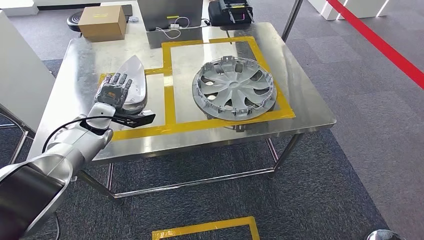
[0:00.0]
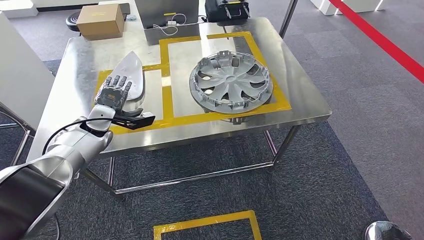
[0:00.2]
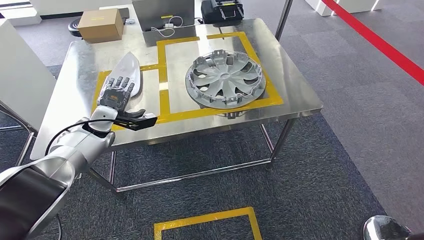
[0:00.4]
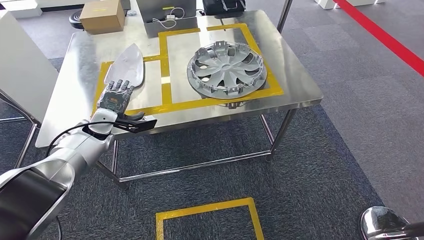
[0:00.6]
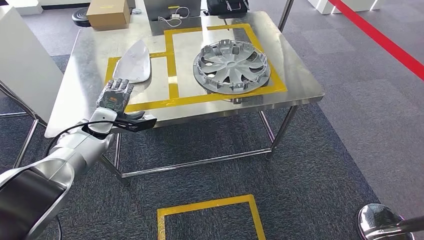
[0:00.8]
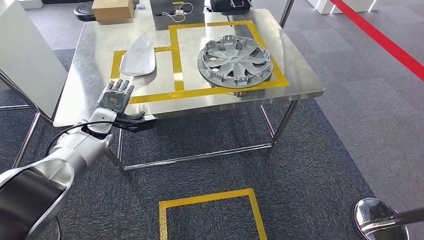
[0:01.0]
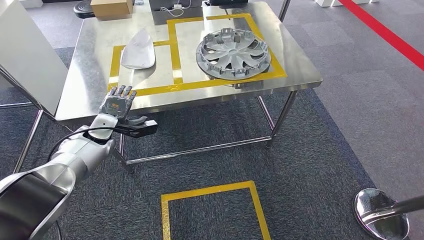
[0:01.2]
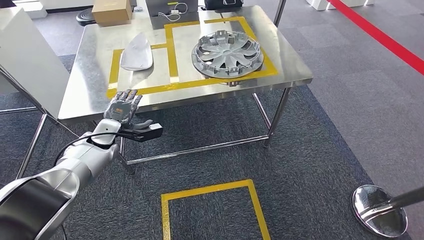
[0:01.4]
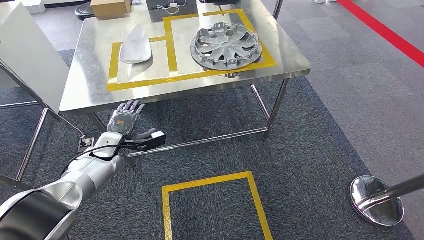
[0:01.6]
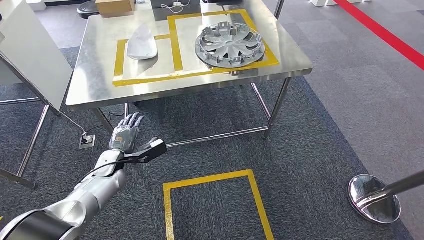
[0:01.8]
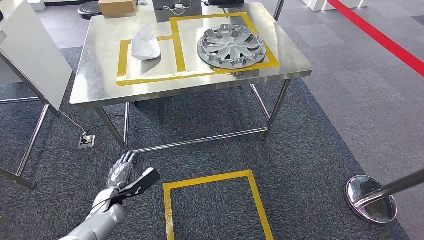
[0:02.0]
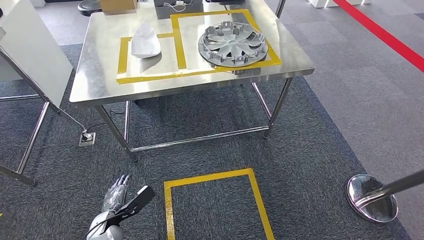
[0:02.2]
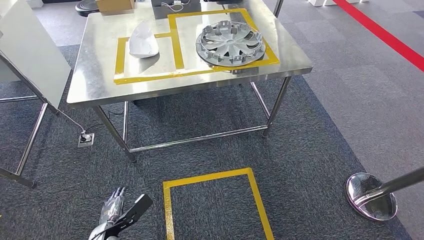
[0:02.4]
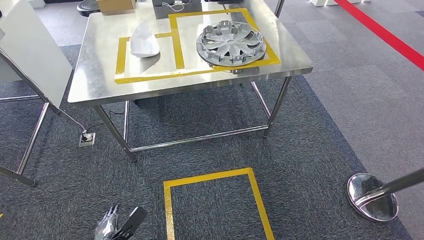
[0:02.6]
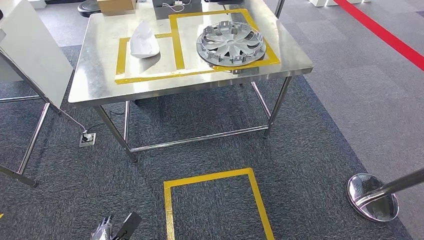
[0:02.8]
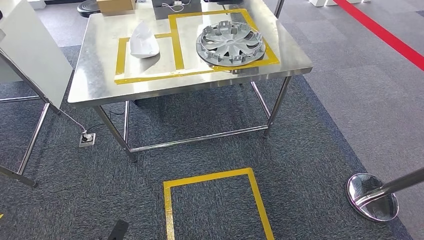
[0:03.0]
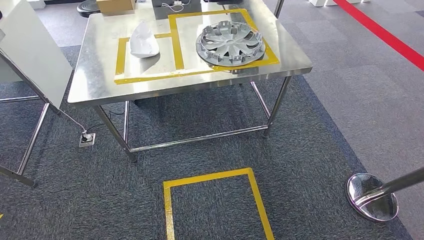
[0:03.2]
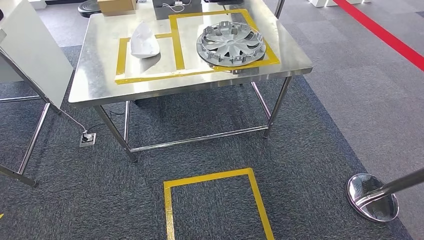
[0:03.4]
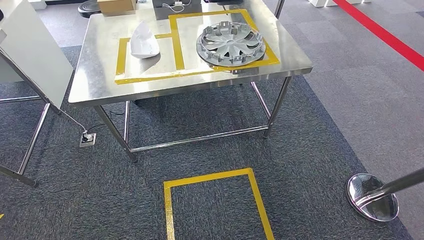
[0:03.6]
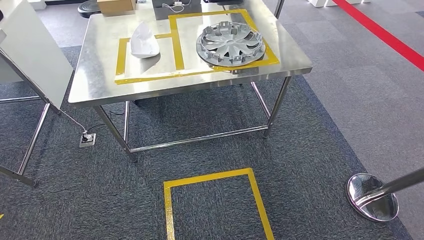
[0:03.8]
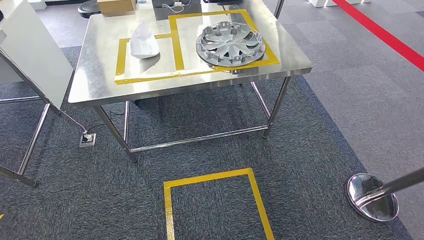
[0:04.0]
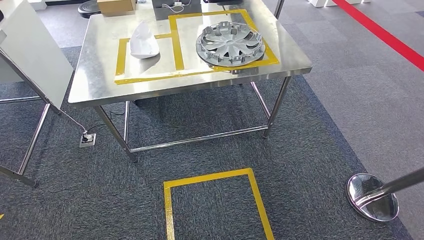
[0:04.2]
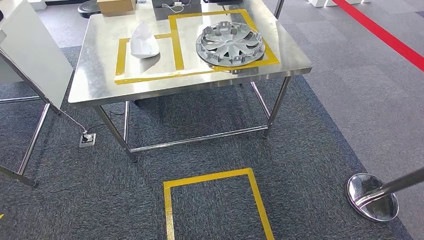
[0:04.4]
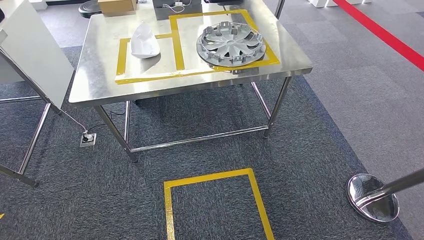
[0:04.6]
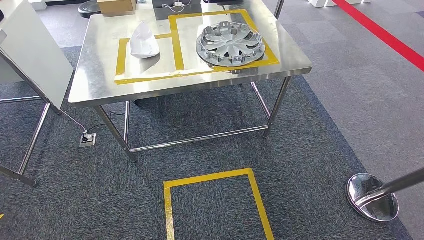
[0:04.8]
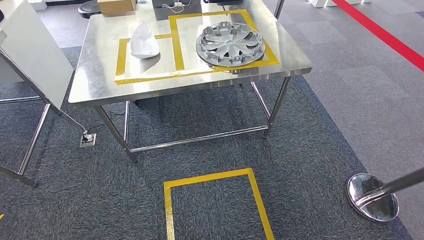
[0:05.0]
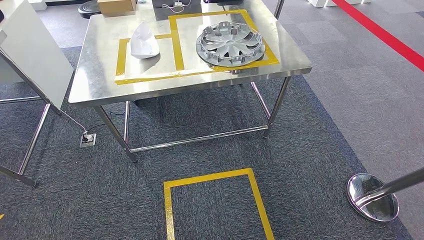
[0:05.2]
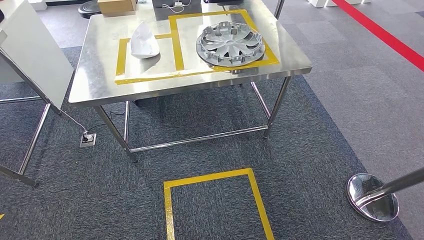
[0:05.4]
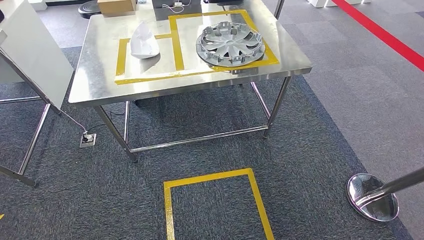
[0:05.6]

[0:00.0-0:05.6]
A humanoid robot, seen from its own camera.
Step, 0:00.0 to 0:05.6: Move to the initial position of the workbench.
0:02.8 to 0:04.2: The left hand moves backward and to the right, about 15 cm.
